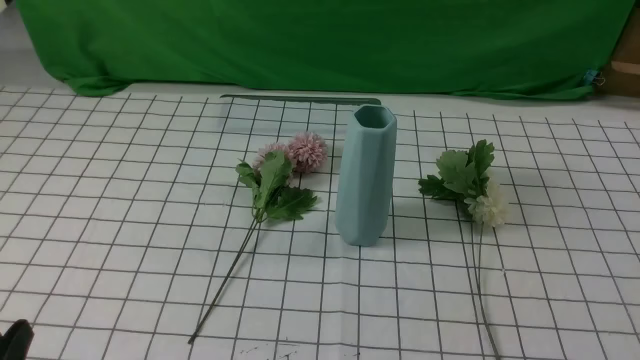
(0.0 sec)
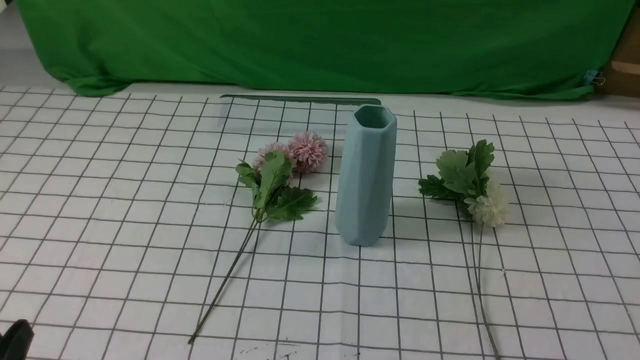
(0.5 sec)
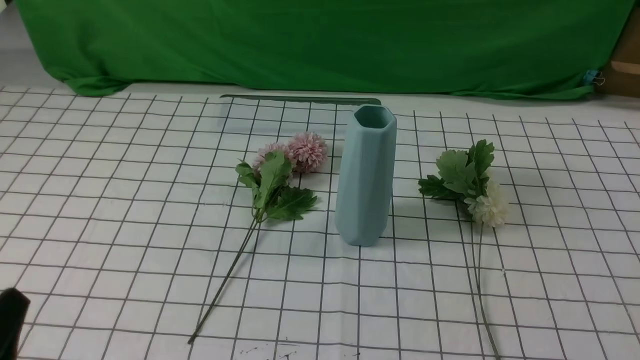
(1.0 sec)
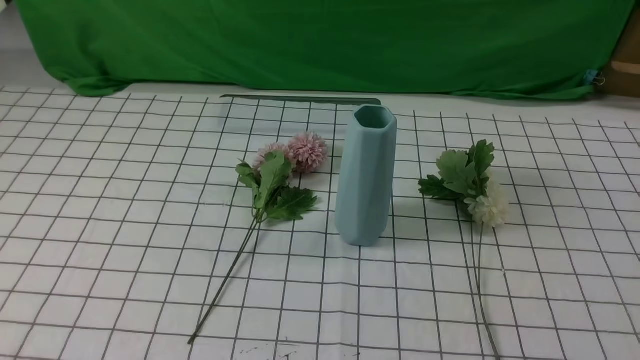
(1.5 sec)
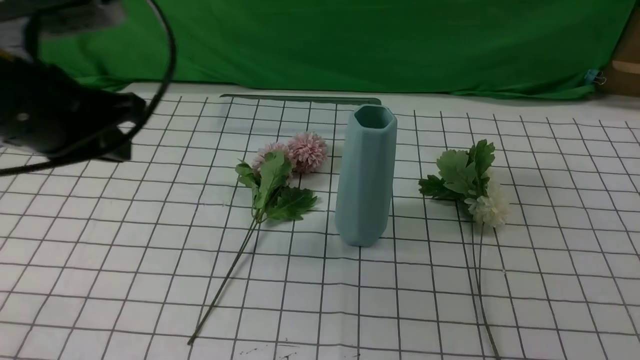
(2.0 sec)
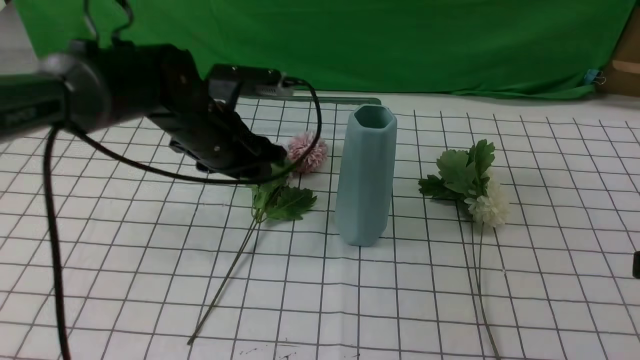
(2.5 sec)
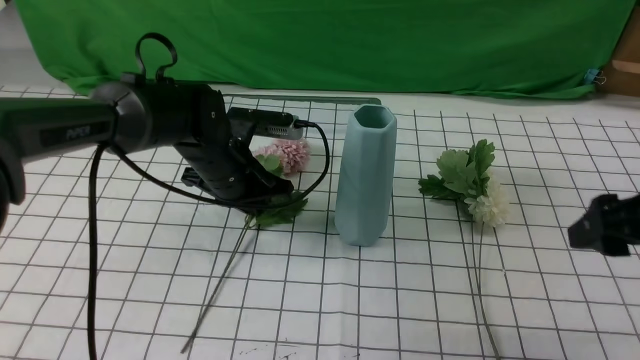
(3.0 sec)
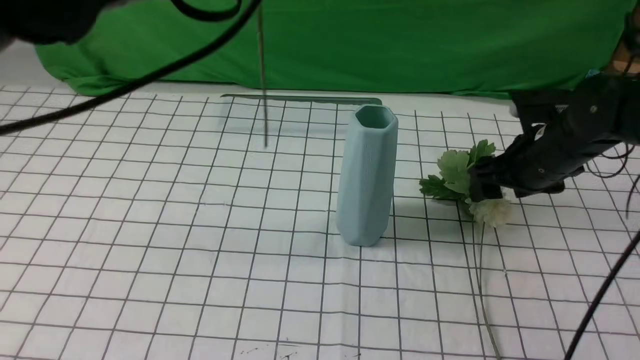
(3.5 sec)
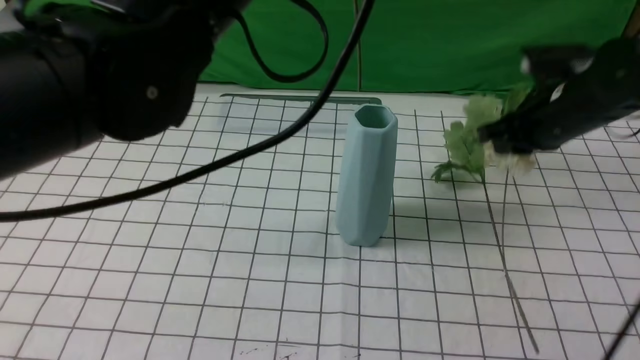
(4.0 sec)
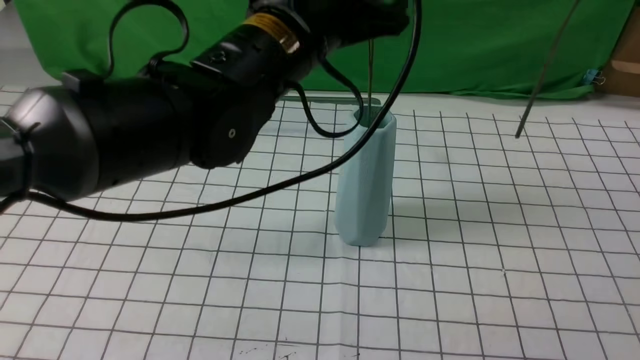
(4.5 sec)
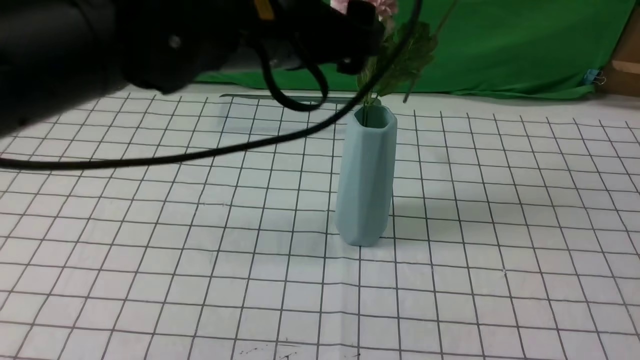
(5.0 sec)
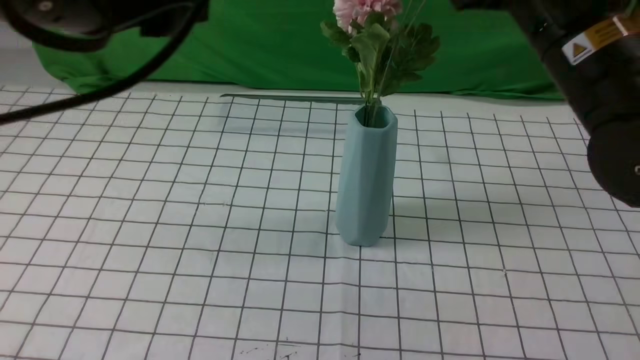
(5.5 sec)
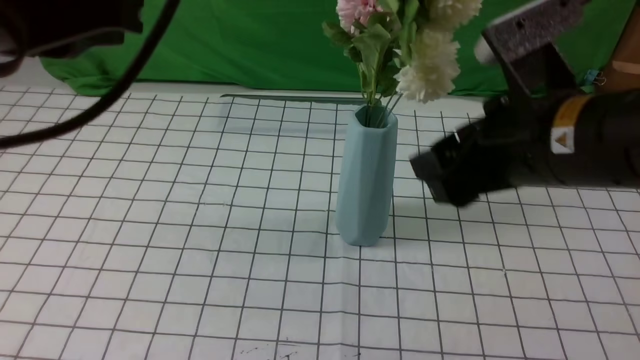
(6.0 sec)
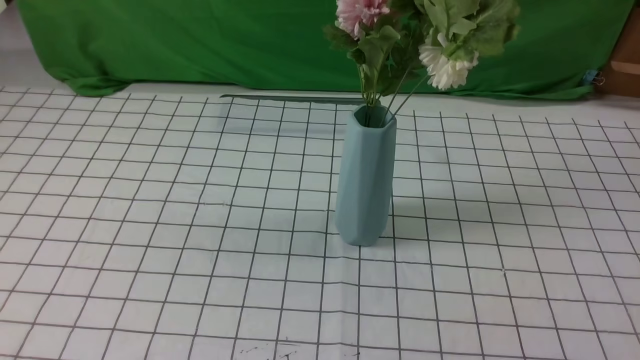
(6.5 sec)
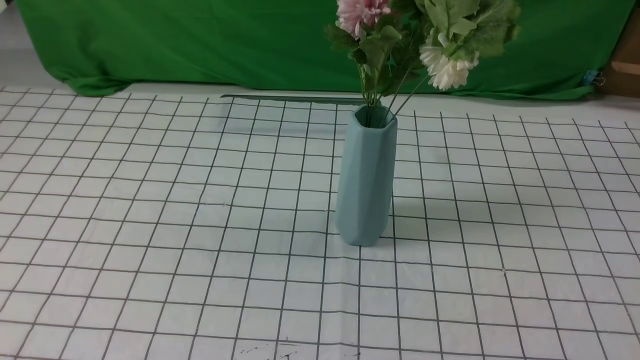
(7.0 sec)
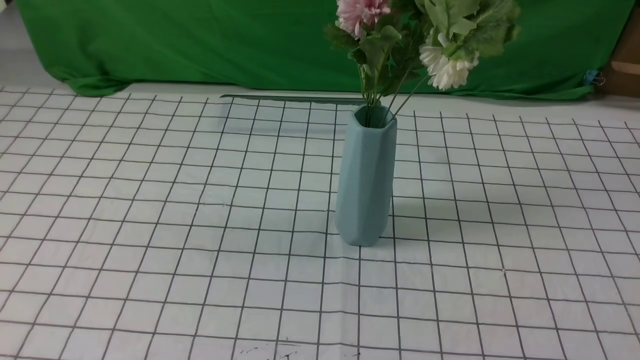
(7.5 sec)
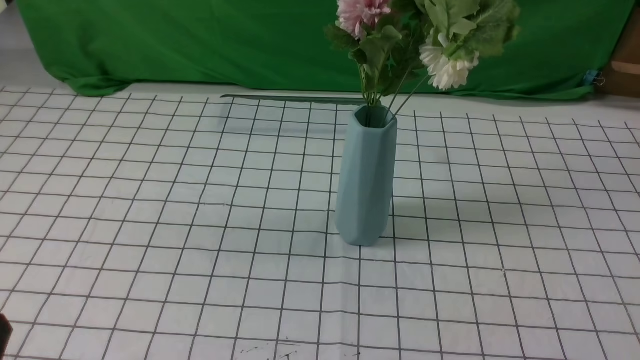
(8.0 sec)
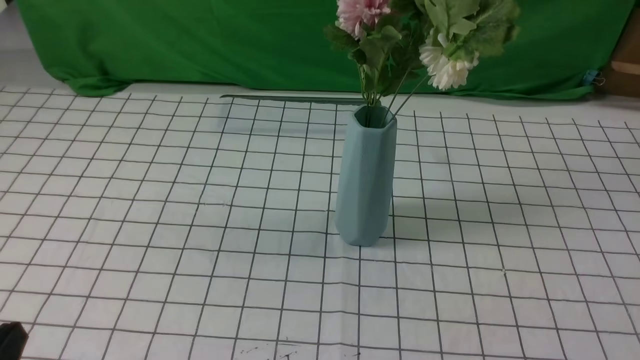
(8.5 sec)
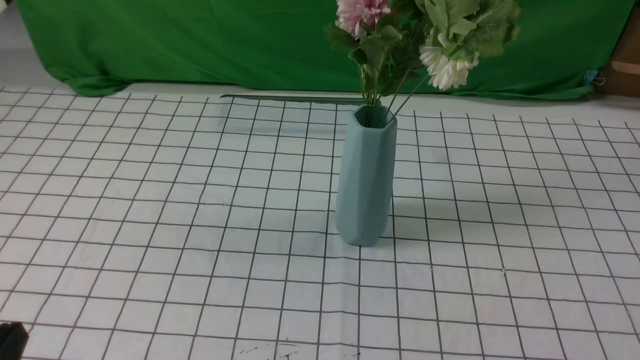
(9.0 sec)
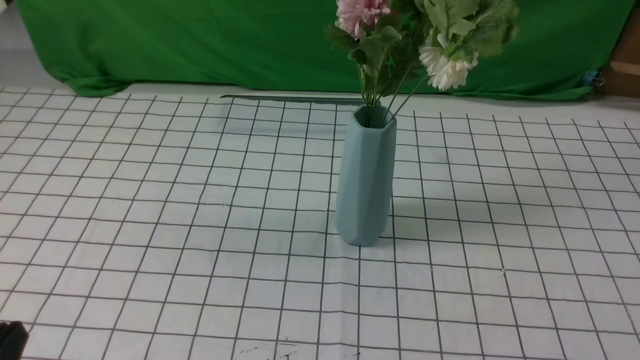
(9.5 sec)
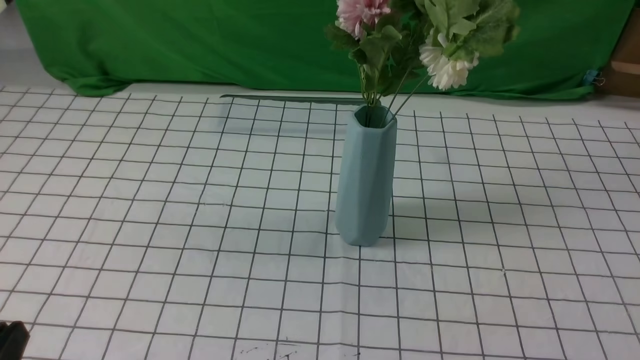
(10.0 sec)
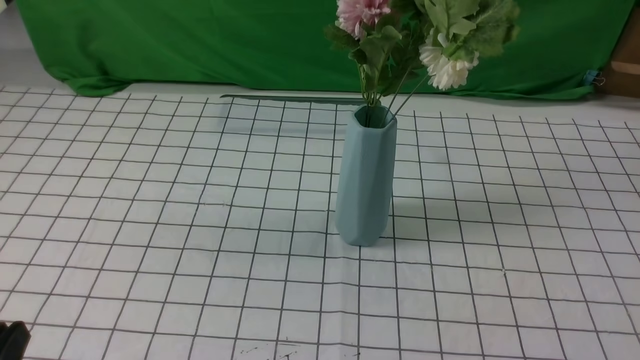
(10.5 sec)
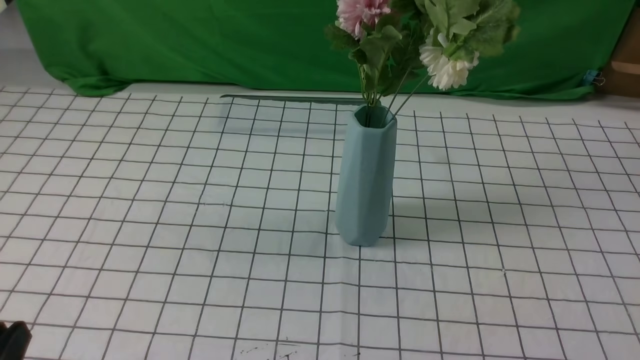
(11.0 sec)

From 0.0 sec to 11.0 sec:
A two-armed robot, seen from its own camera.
Task of the whole recording: insert the flowers into the vase on the table with the white tablecloth.
Step, from 0.0 sec to 6.0 sec: Put the flowers in the vase with both hands.
From 0.0 sec to 2.0 sec: The left gripper is displaced forward and upward by approximately 30 cm, and closes, while the right gripper shifts some 10 cm upward.
From 2.0 sec to 3.5 sec: The left gripper heads to the right, covering about 10 cm, reaches about 15 cm downward, then returns, and opens and closes again. The right gripper shifts some 35 cm forward, and opens.
From 3.5 sec to 5.5 sec: The left gripper heads backward and to the left, covering approximately 10 cm, and opens up, while the right gripper moves upward, backward and to the left, approximately 20 cm, and closes its fingers.
From 5.5 sec to 7.5 sec: The right gripper shifts some 30 cm backward and to the right. Meanwhile the left gripper goes some 30 cm backward, downward and to the left, and closes.
